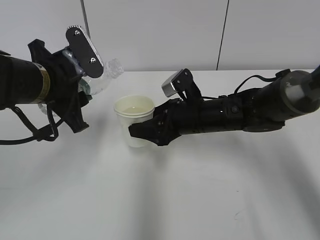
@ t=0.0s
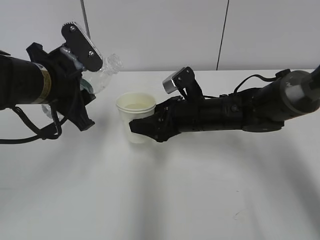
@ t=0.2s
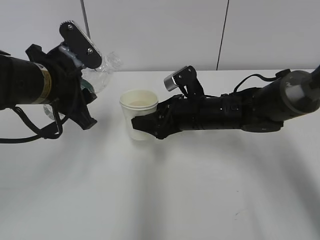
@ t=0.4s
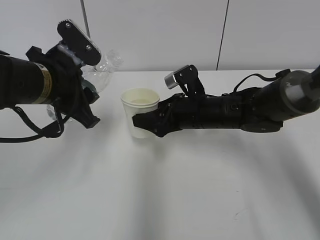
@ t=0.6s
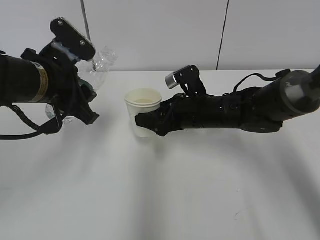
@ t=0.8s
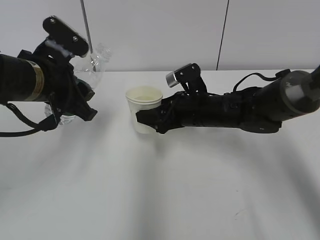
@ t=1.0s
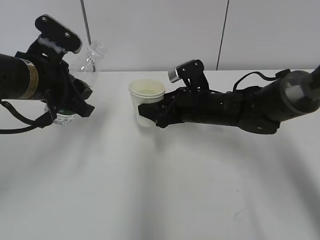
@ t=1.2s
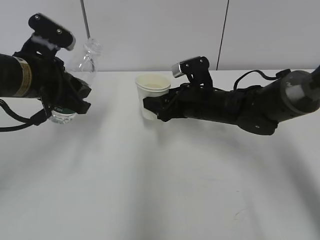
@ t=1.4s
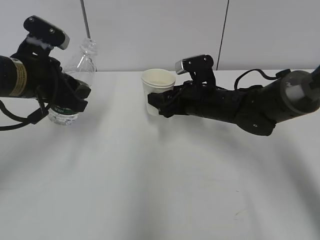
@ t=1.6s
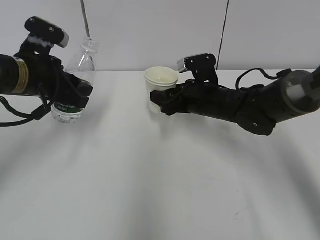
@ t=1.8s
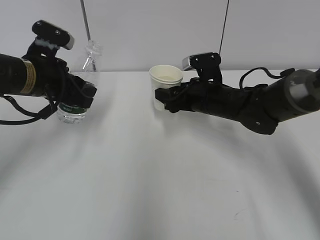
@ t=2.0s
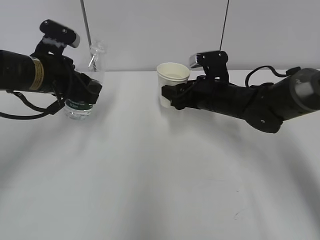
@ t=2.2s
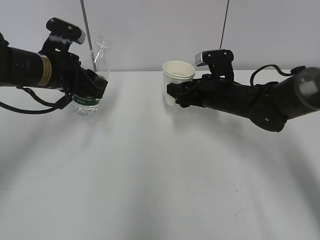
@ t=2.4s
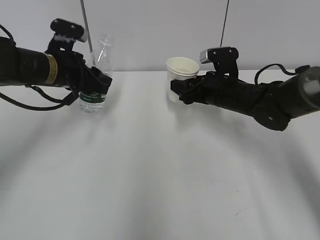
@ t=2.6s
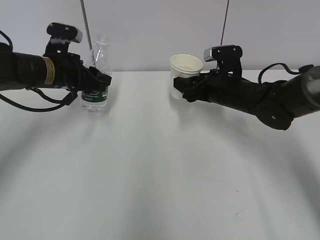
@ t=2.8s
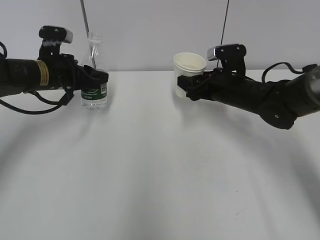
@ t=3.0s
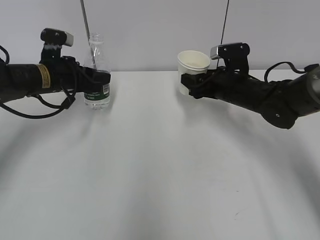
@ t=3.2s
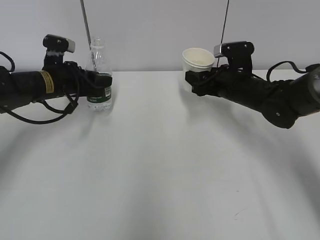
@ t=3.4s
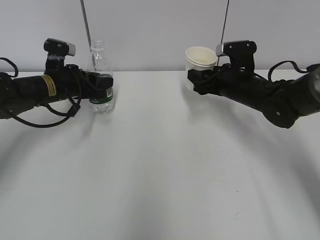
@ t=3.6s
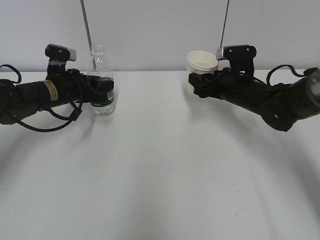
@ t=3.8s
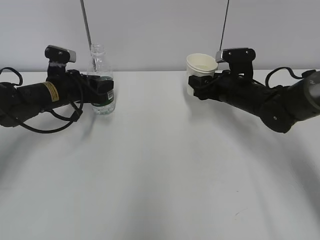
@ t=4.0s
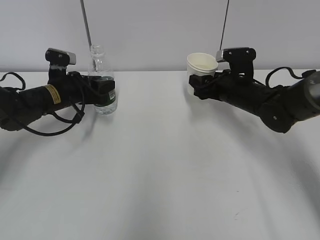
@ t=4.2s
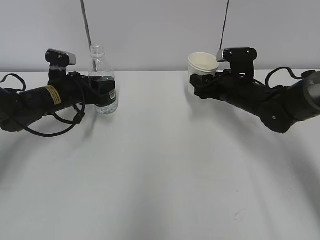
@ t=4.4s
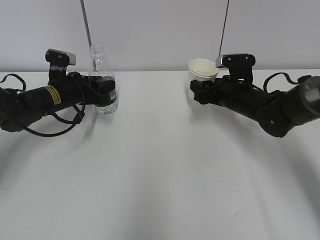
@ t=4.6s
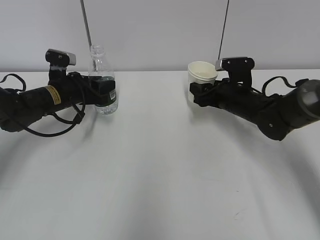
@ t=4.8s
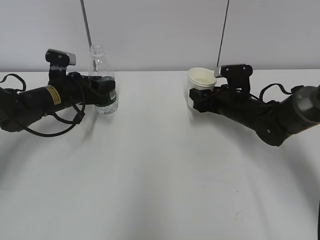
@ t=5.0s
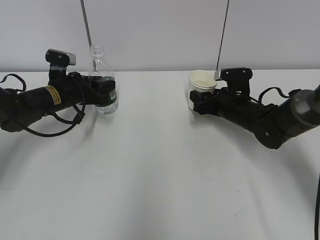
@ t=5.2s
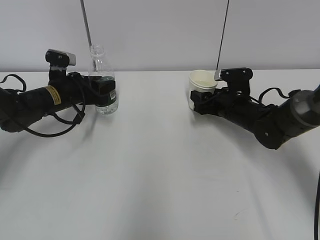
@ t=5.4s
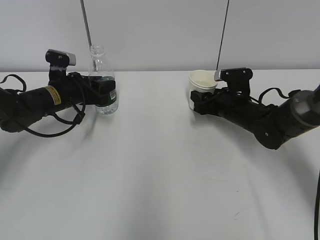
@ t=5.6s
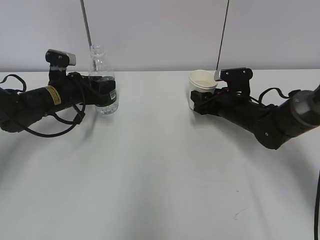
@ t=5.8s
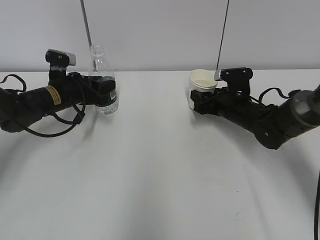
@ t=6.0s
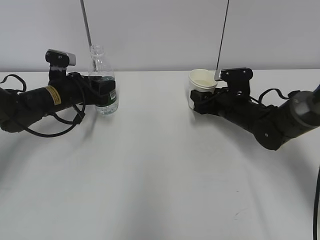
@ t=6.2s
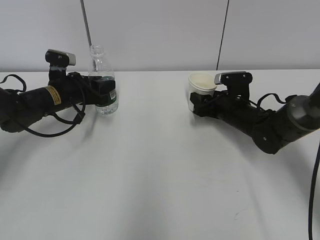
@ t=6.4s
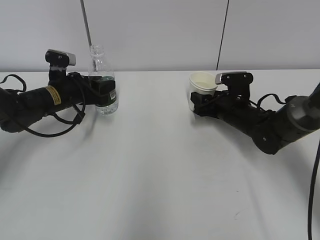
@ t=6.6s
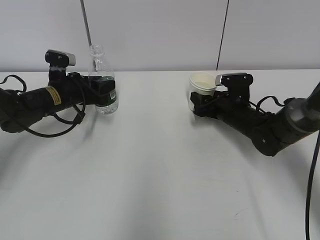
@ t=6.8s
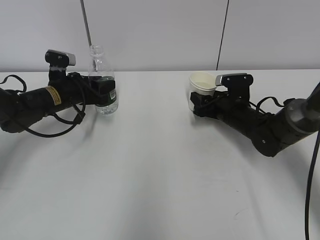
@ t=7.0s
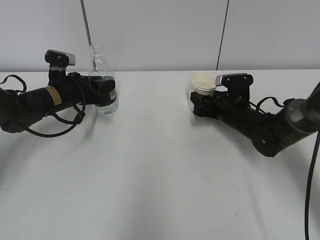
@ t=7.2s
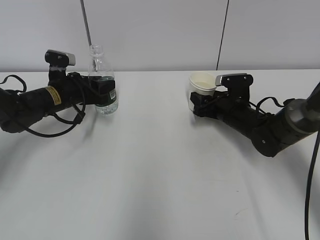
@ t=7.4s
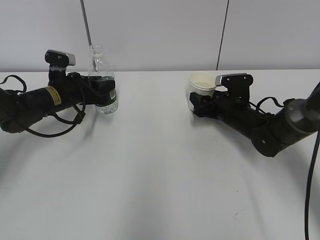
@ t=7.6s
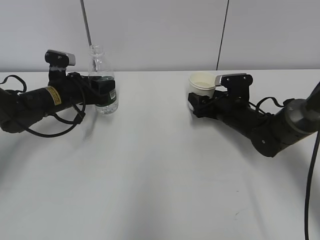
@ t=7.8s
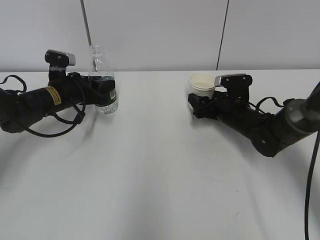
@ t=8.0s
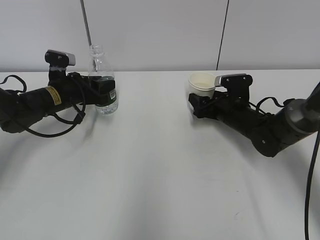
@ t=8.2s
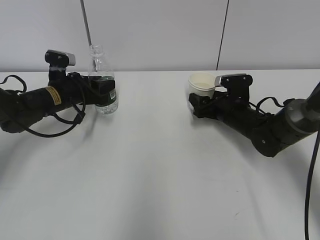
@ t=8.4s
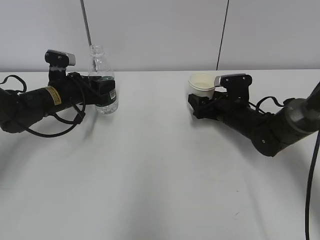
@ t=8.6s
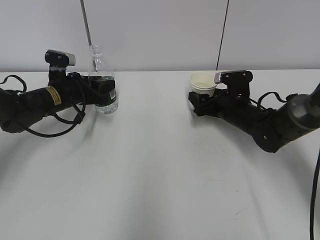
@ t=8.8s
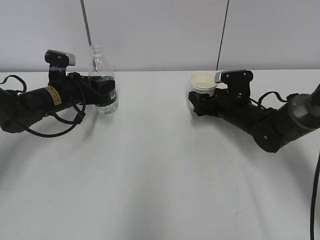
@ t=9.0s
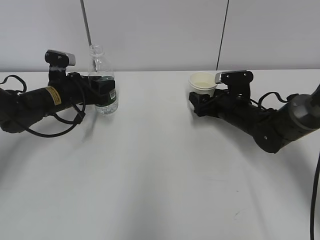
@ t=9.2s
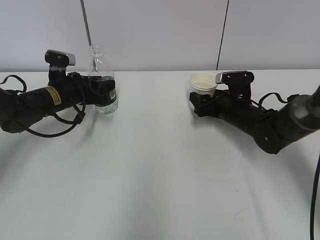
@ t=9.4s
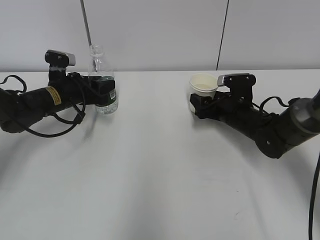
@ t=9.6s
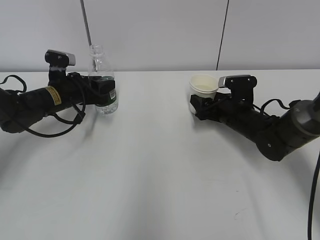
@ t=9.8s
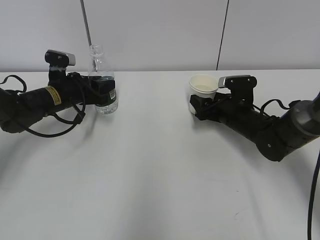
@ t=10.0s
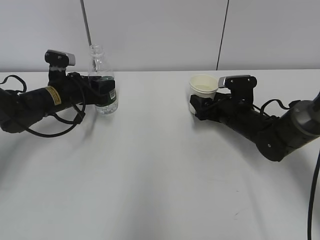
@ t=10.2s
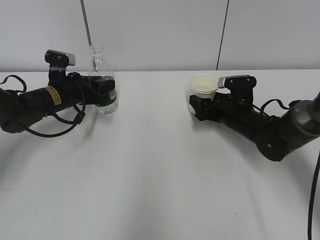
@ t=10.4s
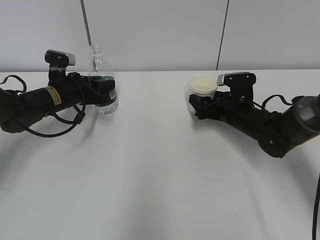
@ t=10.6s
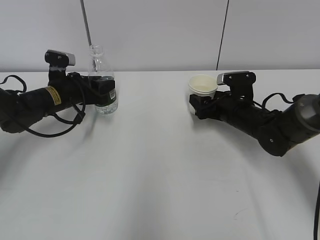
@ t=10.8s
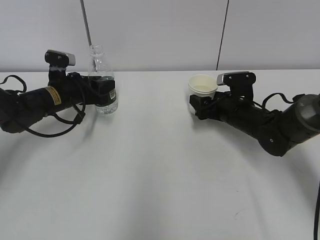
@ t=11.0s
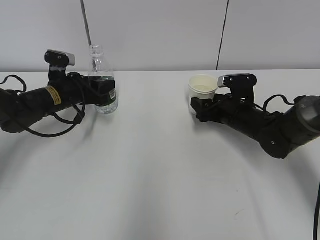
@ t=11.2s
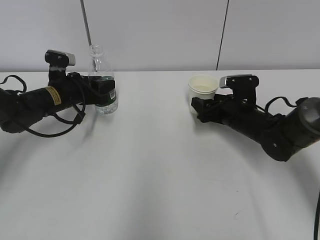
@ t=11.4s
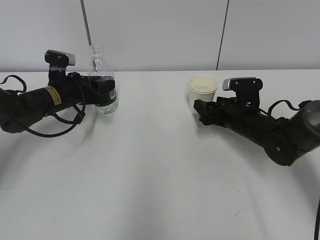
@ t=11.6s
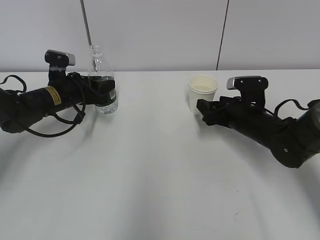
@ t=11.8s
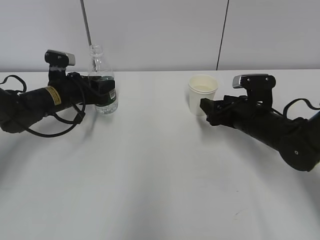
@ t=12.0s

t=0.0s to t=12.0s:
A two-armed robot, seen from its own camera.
Step, t=0.0s to t=4.6s: Place the paper cup with the right hand.
t=1.6s to t=3.0s: The right gripper goes about 5 cm to the right. Meanwhile the left gripper goes roughly 10 cm forward and downward.
t=3.0s to t=4.4s: The left gripper travels downward by about 5 cm.
t=4.4s to t=7.6s: The grippers move only a little.
t=7.6s to t=9.0s: The right gripper opens its fingers.
t=9.0s to t=10.4s: There are only small adjustments of the grippers.
t=10.4s to t=12.0s: The right gripper moves roughly 5 cm.

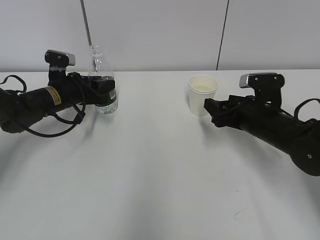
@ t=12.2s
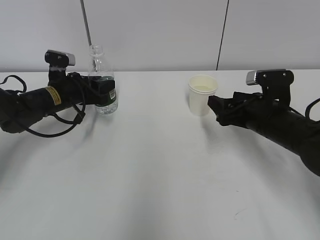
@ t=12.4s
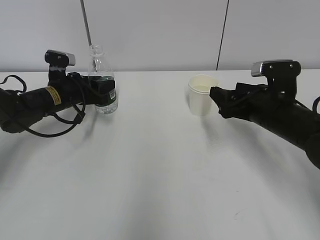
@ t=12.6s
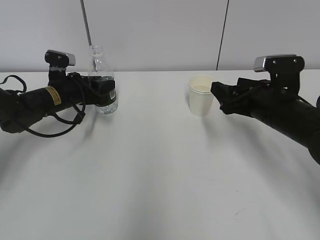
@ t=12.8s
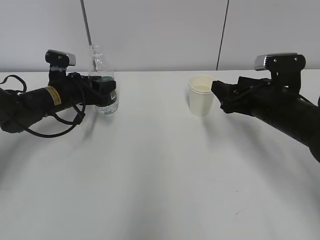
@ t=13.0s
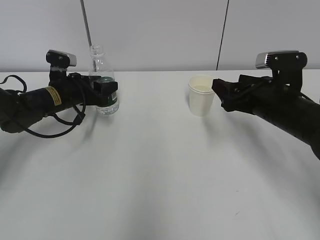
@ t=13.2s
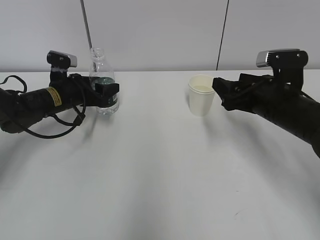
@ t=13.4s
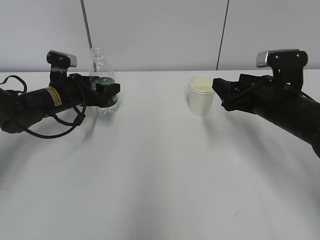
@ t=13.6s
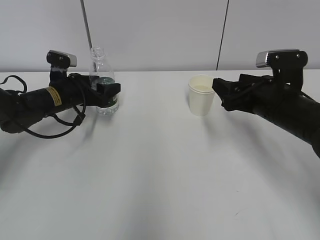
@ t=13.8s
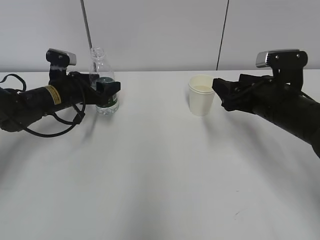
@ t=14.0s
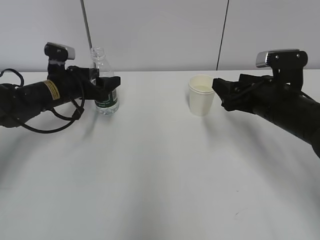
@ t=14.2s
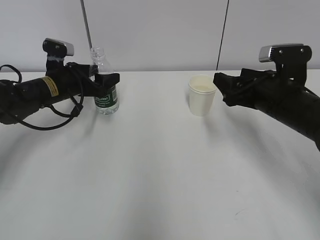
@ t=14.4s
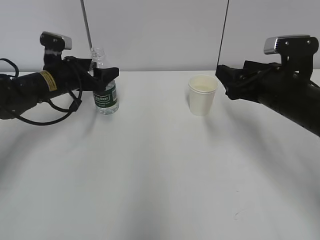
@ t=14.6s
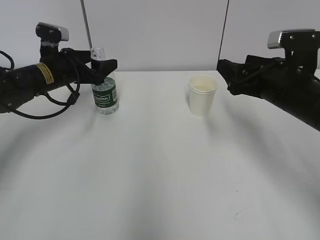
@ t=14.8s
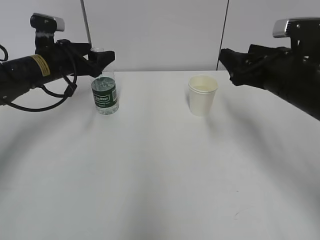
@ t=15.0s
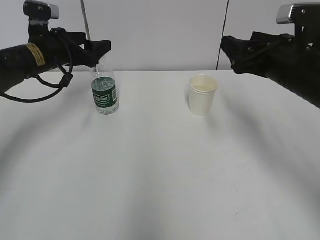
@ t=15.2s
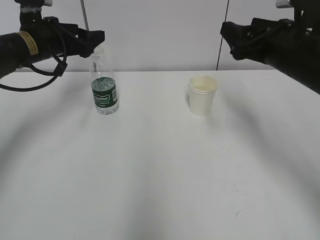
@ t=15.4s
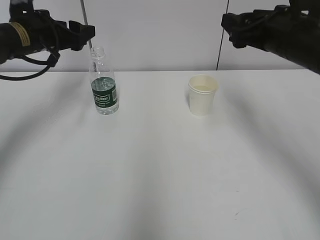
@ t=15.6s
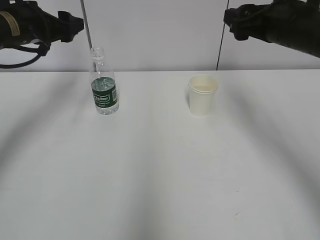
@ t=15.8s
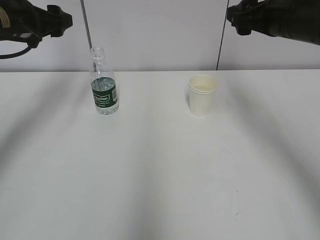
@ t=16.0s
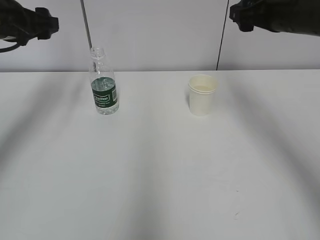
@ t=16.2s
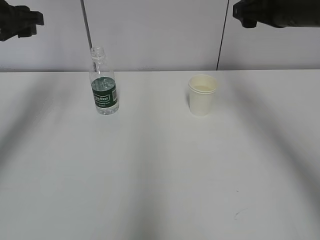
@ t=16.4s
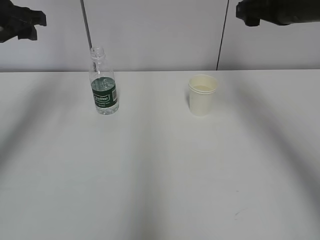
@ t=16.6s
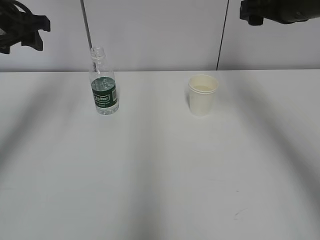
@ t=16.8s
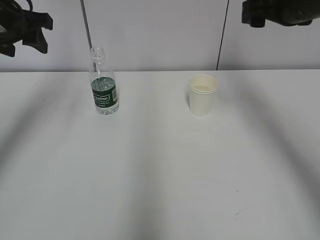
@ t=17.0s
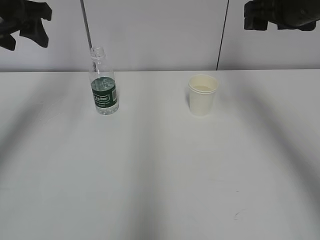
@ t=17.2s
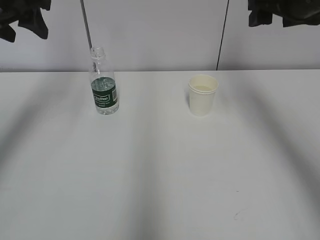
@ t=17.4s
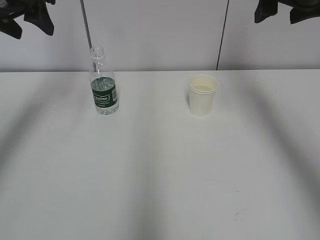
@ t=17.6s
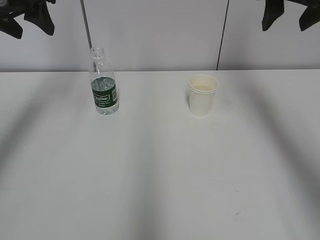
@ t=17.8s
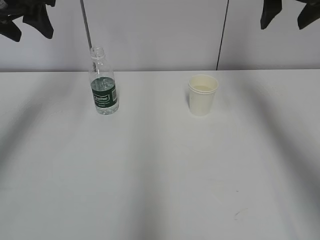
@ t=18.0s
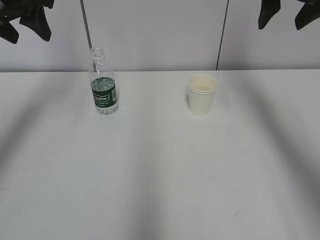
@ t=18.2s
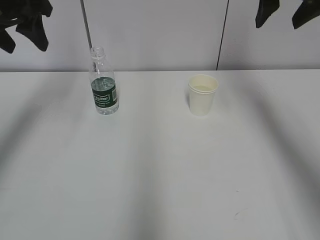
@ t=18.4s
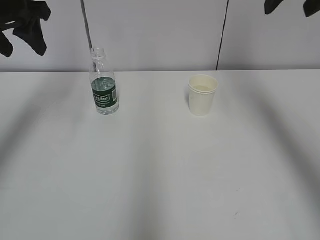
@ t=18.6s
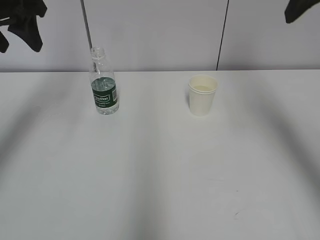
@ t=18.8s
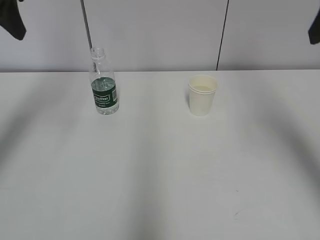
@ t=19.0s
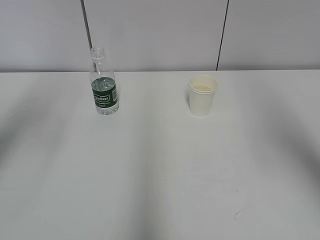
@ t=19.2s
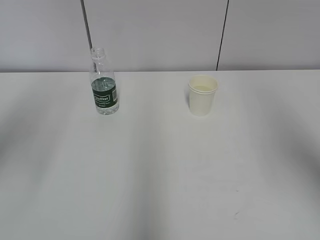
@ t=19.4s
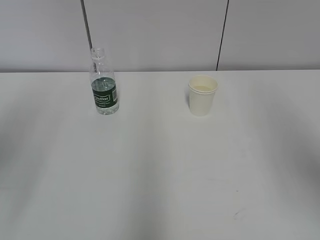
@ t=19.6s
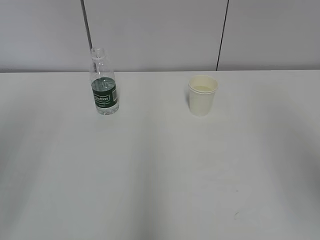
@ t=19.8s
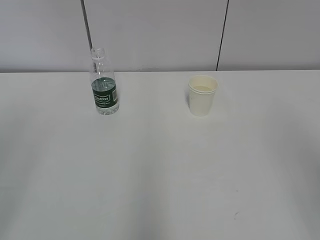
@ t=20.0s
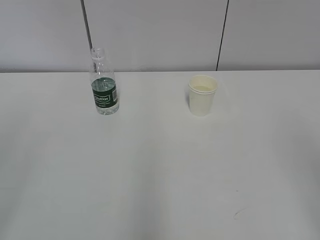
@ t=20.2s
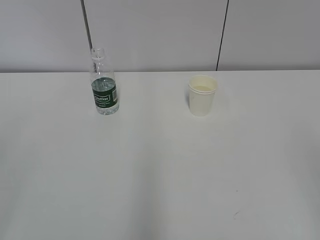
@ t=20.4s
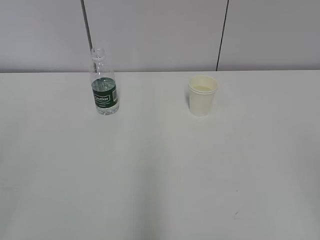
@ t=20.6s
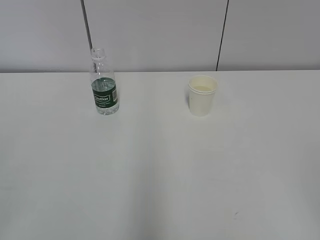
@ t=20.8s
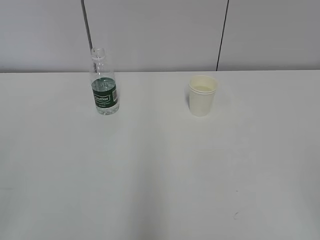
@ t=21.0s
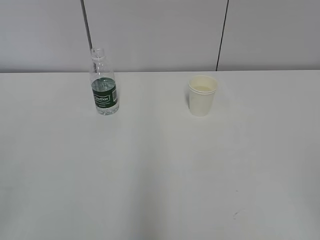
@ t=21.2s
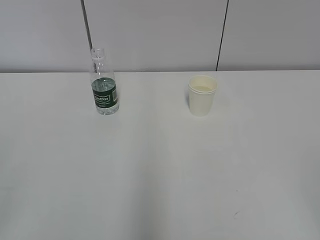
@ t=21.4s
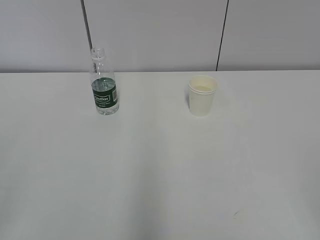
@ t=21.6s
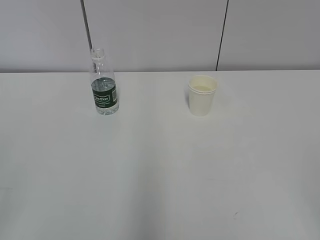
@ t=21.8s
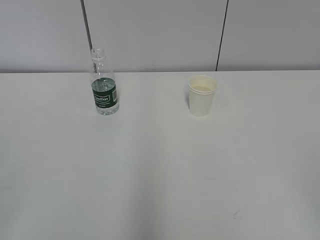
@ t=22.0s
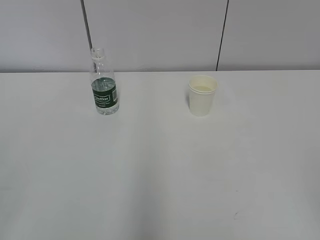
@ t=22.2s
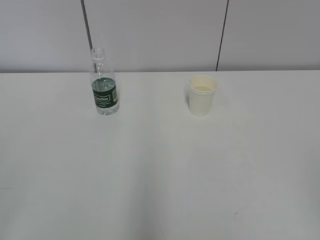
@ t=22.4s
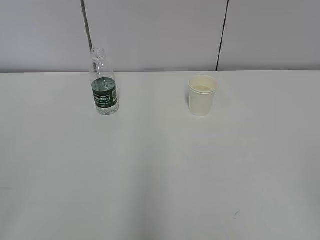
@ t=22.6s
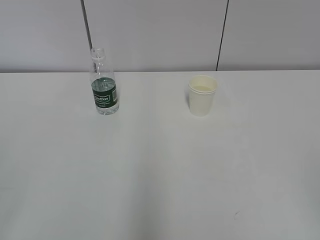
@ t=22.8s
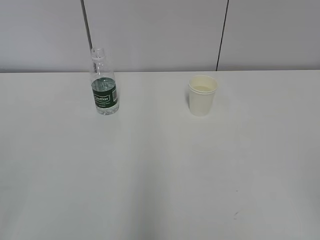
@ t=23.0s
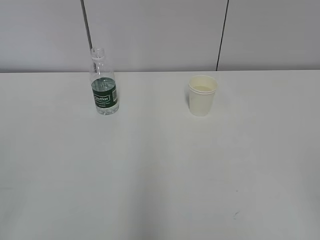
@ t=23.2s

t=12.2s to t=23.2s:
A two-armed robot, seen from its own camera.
t=12.2s to t=13.8s: The right gripper travels upward by about 5 cm. The left gripper opens its fingers.
t=13.8s to t=15.4s: The two grippers go some 10 cm upward.
t=15.4s to t=17.0s: The left gripper travels upward and backward by approximately 10 cm. The right gripper heads upward, covering about 10 cm.
t=17.0s to t=18.4s: The right gripper shifts roughly 5 cm upward.
t=18.4s to t=20.0s: The grippers both shift backward by roughly 30 cm.
